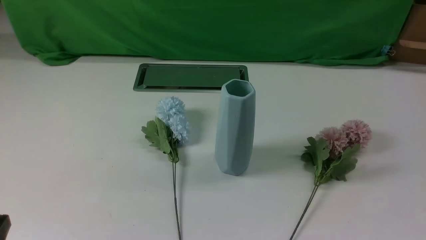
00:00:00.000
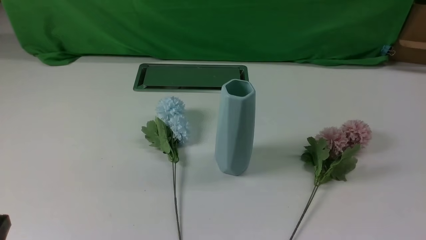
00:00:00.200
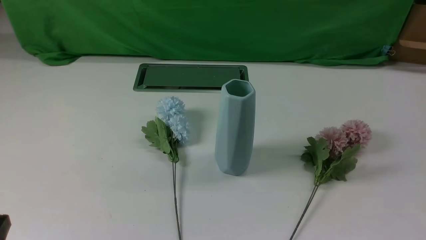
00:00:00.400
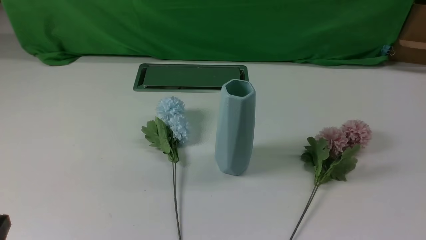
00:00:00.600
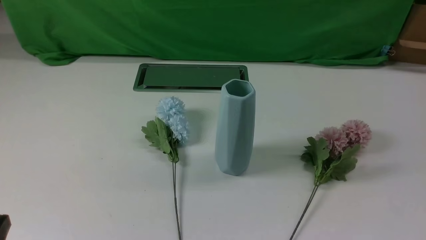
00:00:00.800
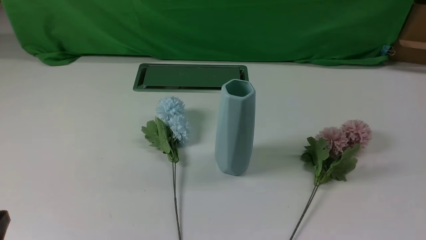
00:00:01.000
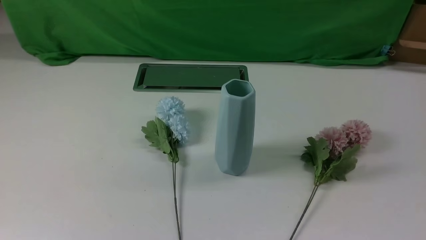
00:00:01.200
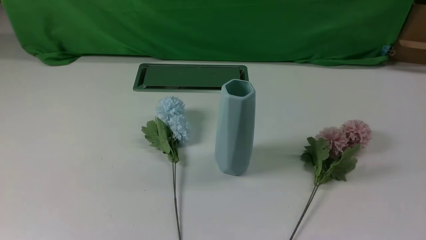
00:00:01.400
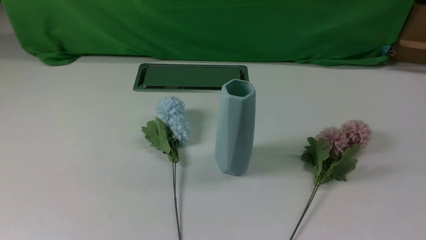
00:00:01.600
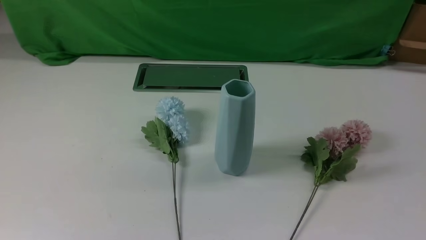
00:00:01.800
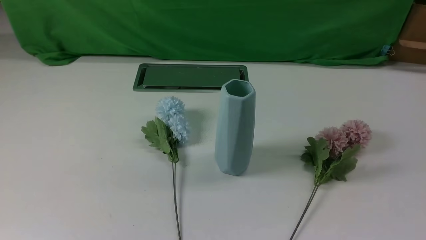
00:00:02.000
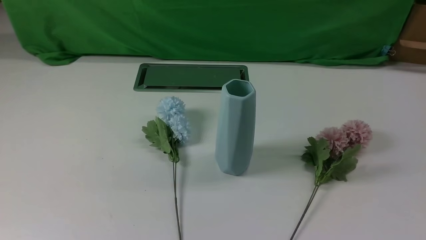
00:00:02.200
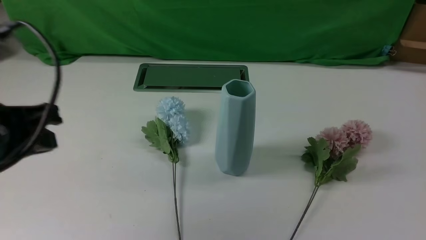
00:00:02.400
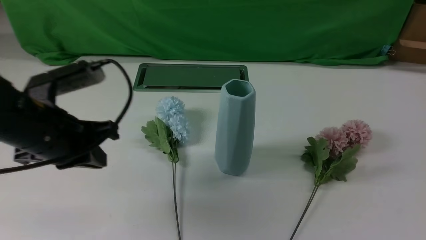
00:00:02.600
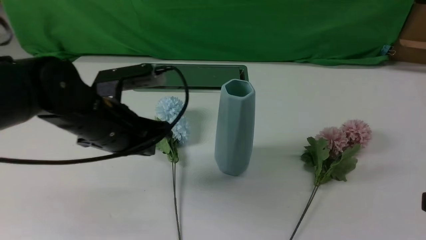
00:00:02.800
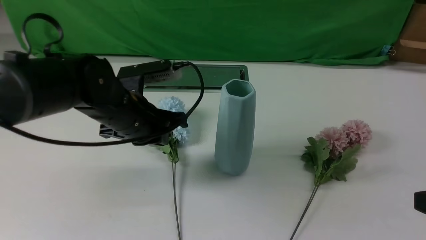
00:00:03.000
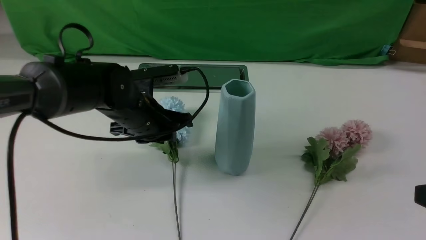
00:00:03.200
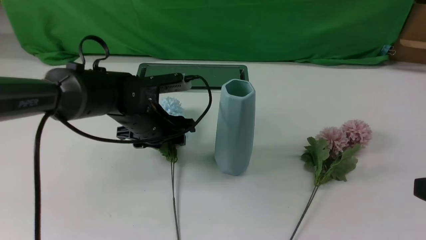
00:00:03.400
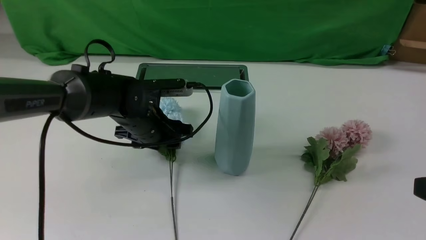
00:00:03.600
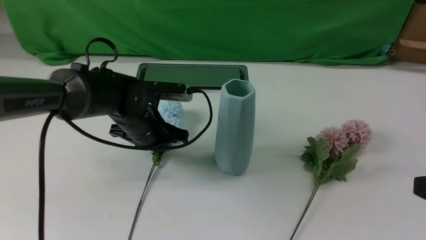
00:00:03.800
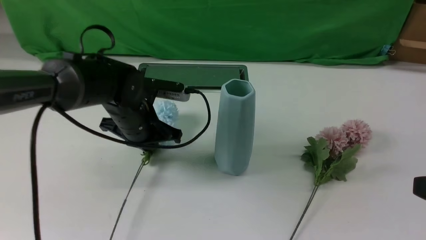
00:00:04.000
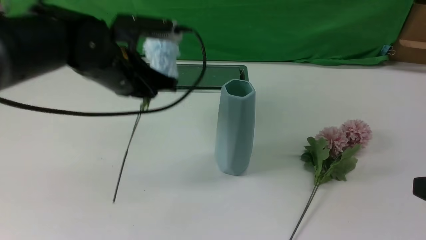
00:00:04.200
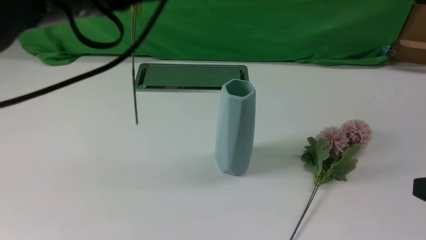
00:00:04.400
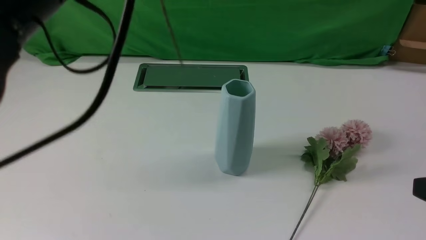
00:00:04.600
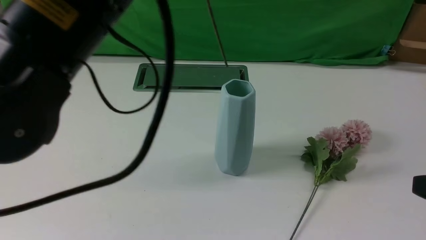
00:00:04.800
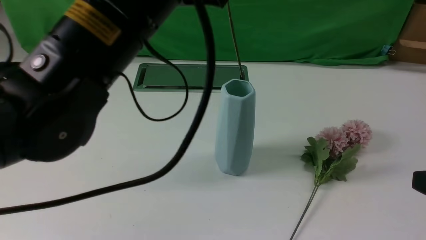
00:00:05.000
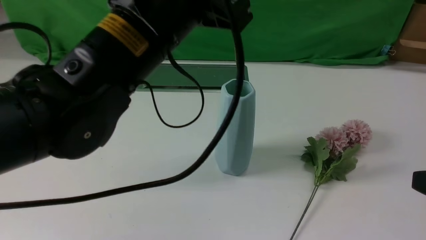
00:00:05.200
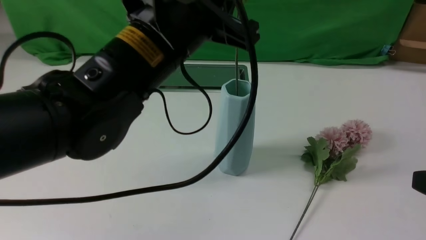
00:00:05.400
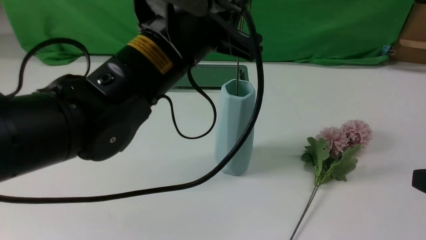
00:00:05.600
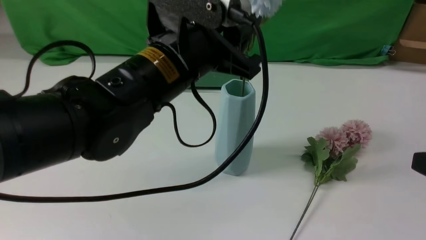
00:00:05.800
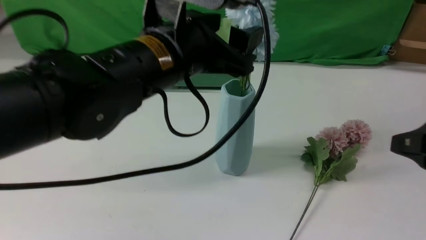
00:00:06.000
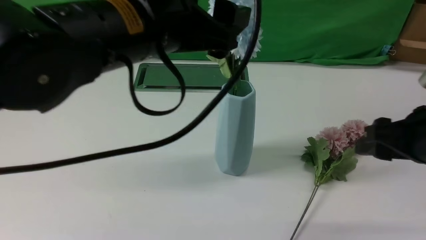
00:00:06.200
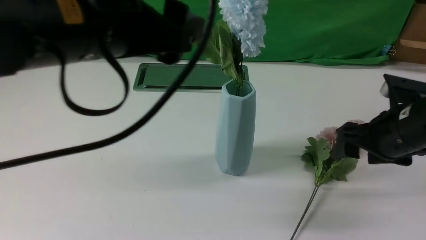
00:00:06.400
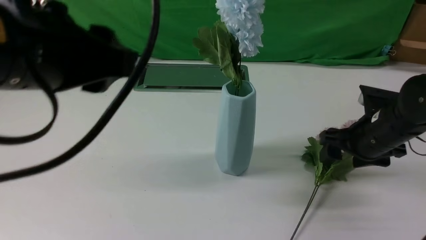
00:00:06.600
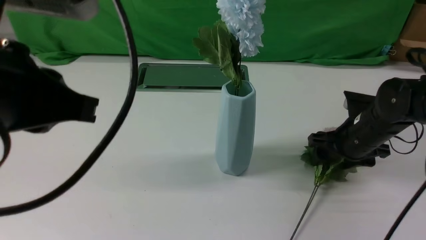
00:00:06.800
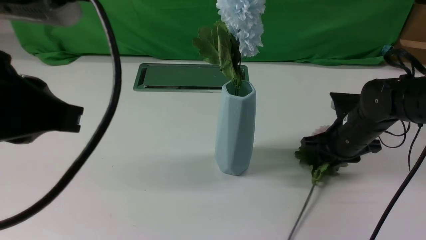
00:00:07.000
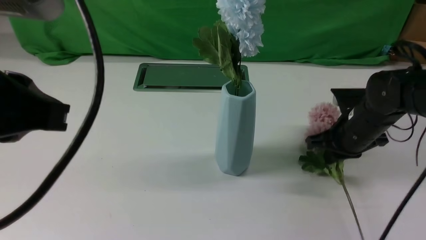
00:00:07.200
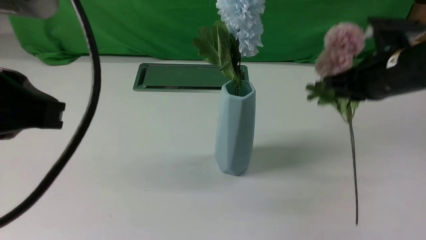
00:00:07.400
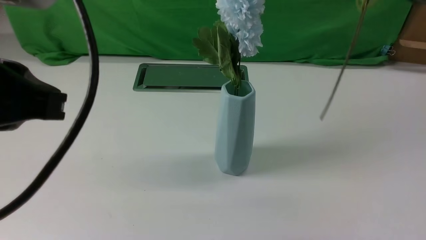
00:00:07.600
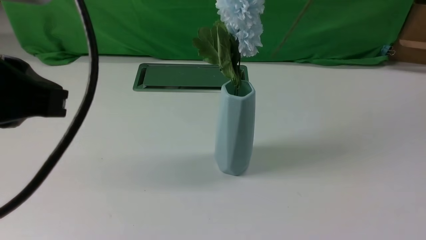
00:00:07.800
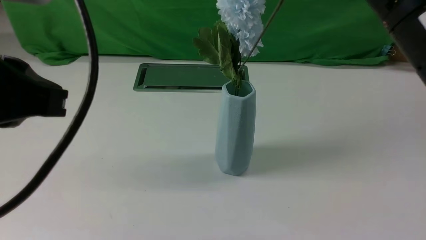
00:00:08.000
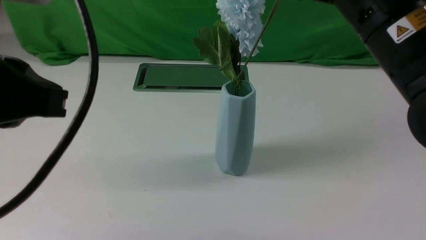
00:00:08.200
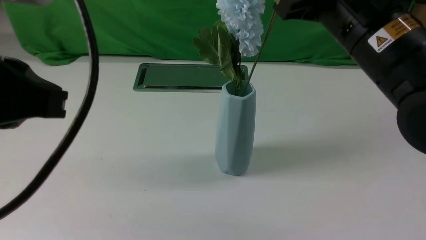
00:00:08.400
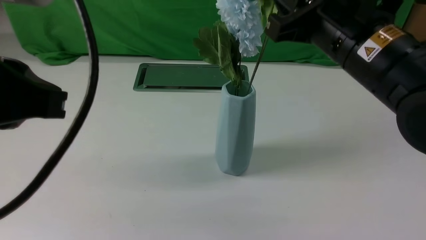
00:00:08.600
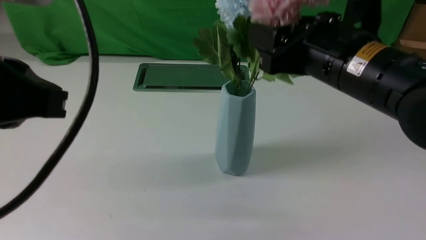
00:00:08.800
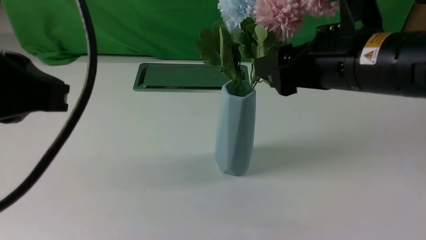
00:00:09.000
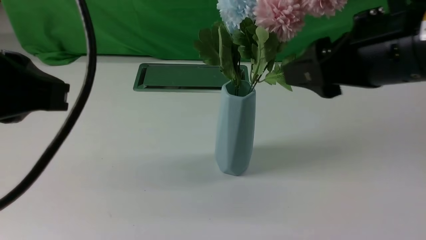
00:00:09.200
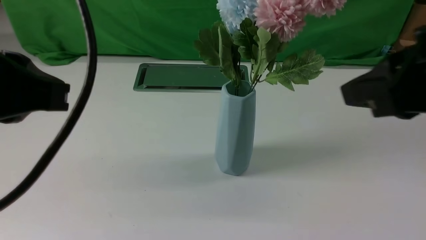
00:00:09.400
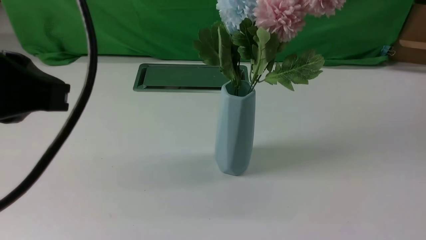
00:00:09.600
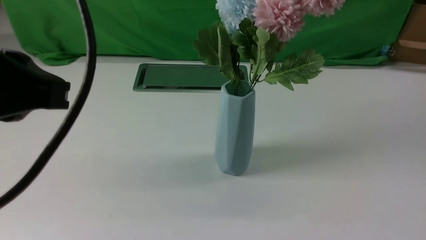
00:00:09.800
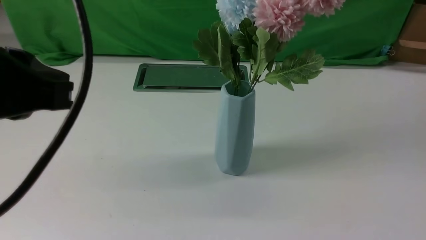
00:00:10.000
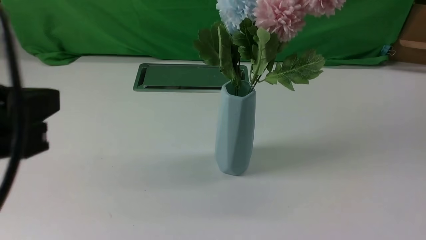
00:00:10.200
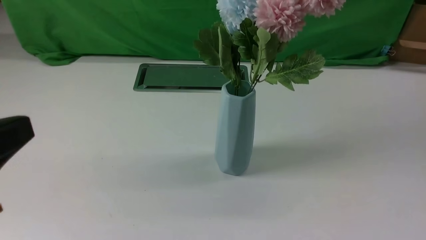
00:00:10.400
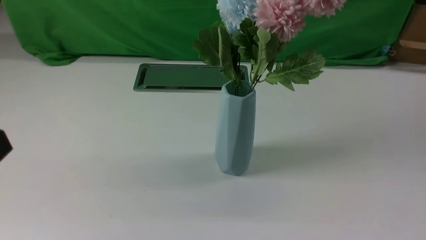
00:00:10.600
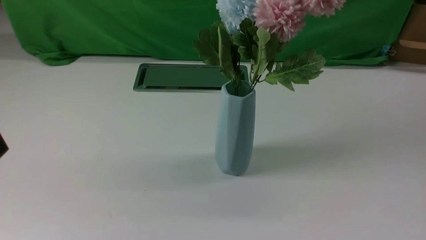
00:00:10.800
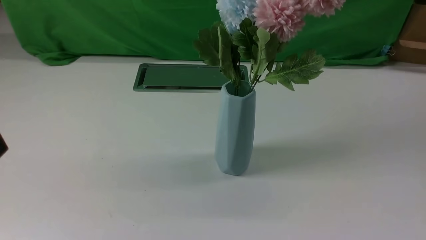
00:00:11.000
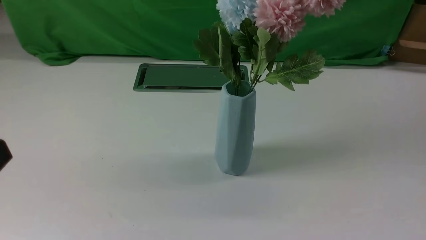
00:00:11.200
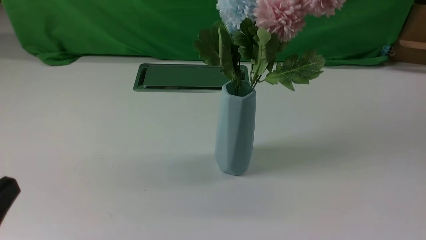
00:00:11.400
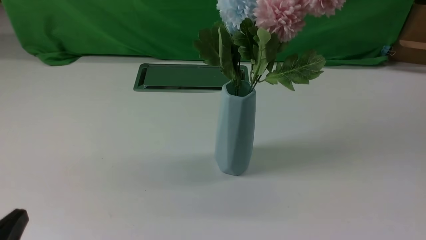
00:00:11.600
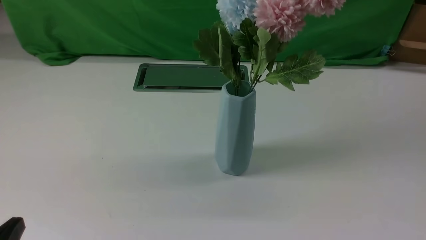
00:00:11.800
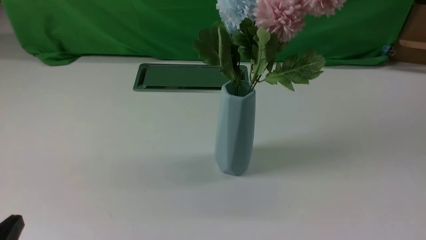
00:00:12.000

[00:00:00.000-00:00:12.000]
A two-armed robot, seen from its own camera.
Task of the whole recording: insert the flowers into the vase on the white table.
Step, 00:00:00.000 to 00:00:03.800: use the left arm to grab a bunch of fresh flowers.
Step, 00:00:04.000 to 00:00:06.000: use the left arm to insert the flowers into the vase.
Step, 00:00:06.400 to 00:00:07.000: use the right arm to grab a bunch of fresh flowers.
Step, 00:00:07.200 to 00:00:09.200: use the right arm to insert the flowers into the vase.
00:00:01.600 to 00:00:03.000: The right gripper travels upward and forward by roughly 10 cm. The left gripper is displaced forward and to the right by about 30 cm.
00:00:03.000 to 00:00:04.400: The left gripper shifts roughly 20 cm upward, and opens, then closes again.
00:00:04.400 to 00:00:06.000: The right gripper goes about 5 cm forward; the left gripper shifts some 5 cm to the right, and opens its fingers.
00:00:06.000 to 00:00:07.600: The right gripper shifts some 15 cm upward, forward and to the left, and closes up. Meanwhile the left gripper moves backward, to the left and upward, roughly 20 cm, and closes its fingers.
00:00:07.600 to 00:00:09.000: The right gripper shifts about 5 cm to the left, and opens.
00:00:09.000 to 00:00:10.400: The right gripper moves backward and to the right, some 30 cm, and closes up. Meanwhile the left gripper goes roughly 10 cm backward and downward.
00:00:10.400 to 00:00:12.000: The left gripper heads downward, covering roughly 20 cm.

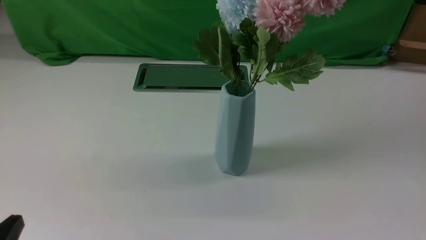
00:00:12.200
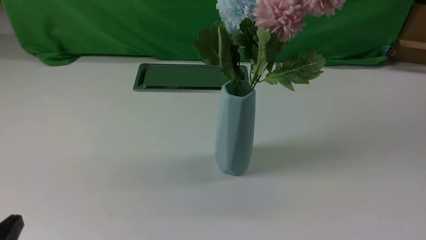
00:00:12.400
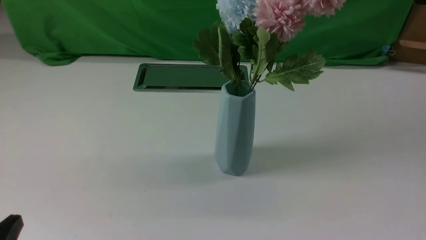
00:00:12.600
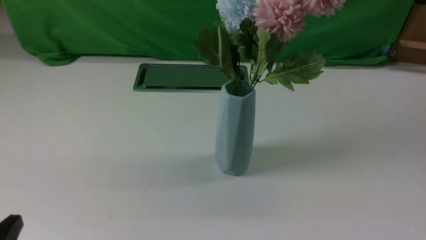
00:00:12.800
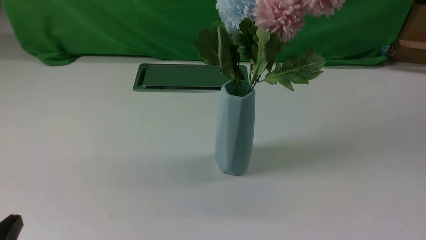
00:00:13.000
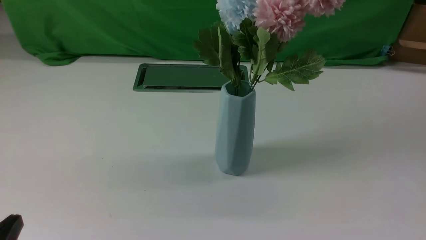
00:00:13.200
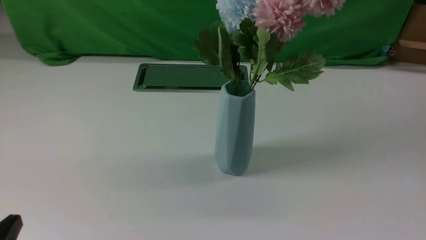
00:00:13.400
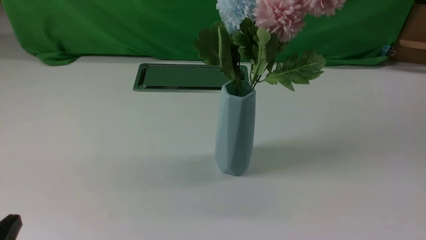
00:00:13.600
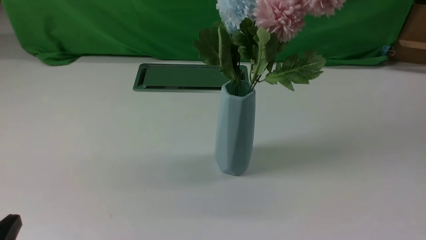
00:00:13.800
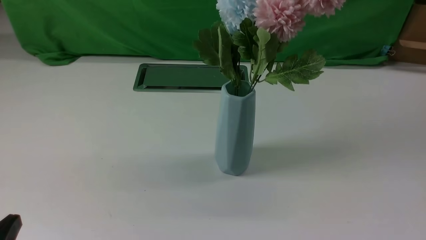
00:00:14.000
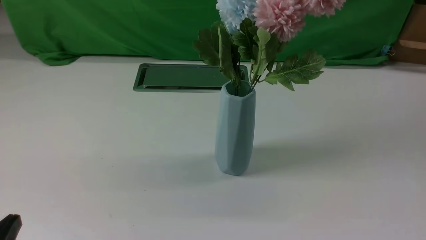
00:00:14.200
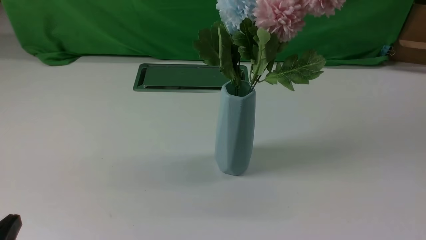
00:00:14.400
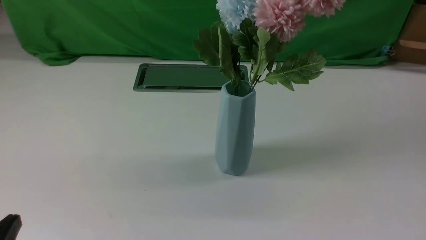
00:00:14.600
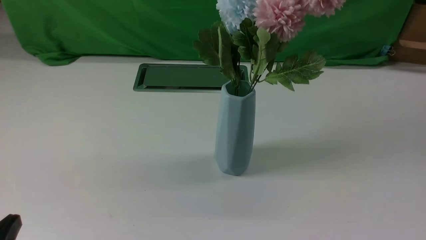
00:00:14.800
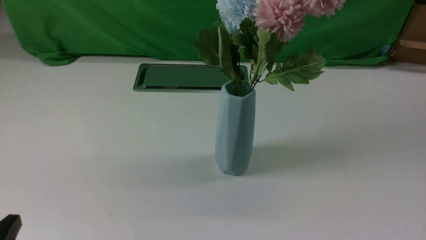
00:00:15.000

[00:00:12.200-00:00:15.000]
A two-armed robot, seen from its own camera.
Task of the whole recording: insert the flowers into the vase on the white table.
00:00:13.600 to 00:00:15.000: Both grippers stay put.
